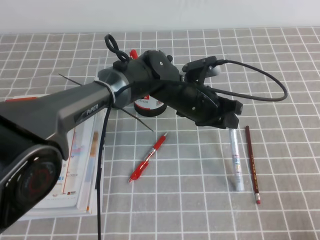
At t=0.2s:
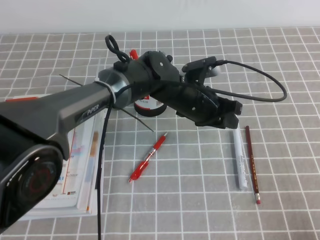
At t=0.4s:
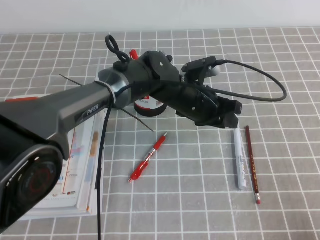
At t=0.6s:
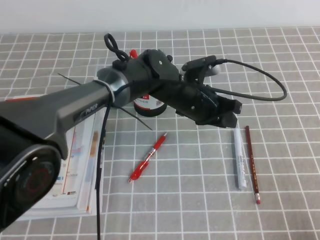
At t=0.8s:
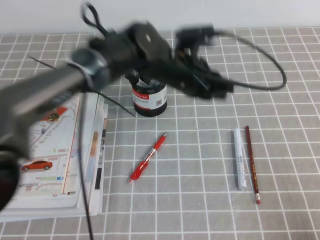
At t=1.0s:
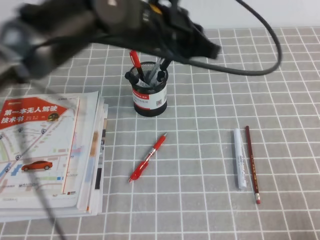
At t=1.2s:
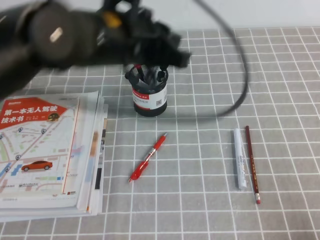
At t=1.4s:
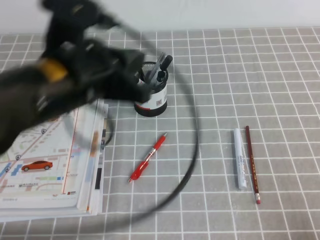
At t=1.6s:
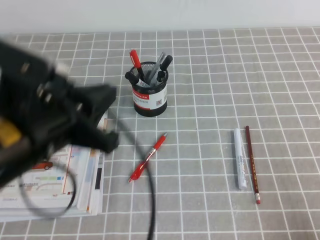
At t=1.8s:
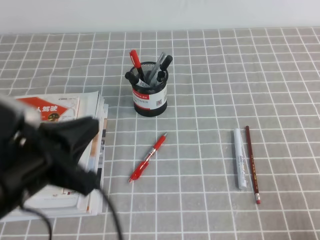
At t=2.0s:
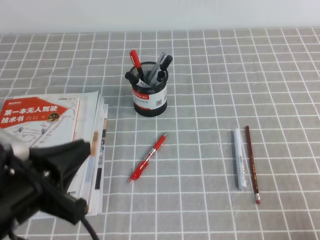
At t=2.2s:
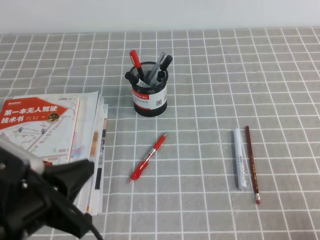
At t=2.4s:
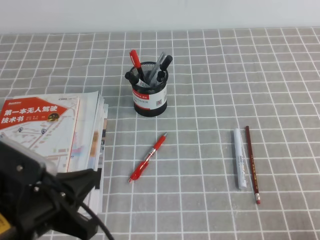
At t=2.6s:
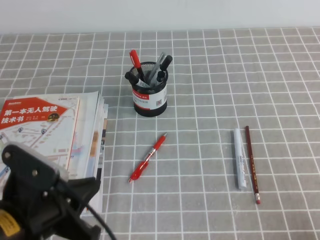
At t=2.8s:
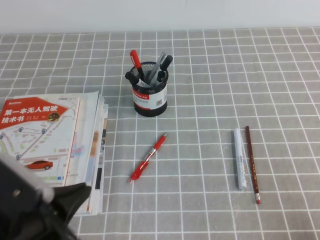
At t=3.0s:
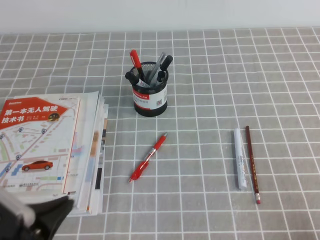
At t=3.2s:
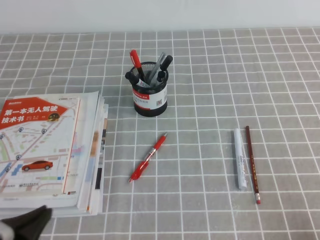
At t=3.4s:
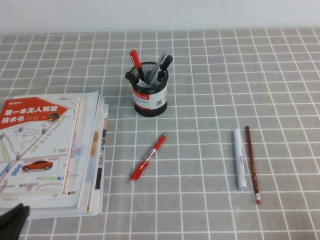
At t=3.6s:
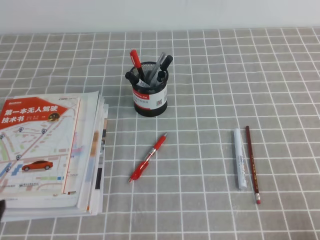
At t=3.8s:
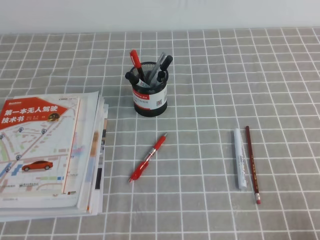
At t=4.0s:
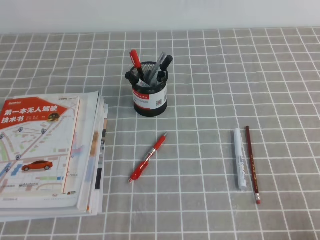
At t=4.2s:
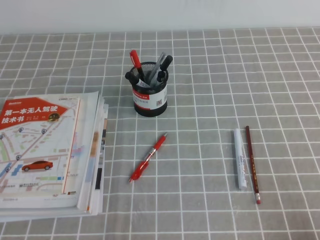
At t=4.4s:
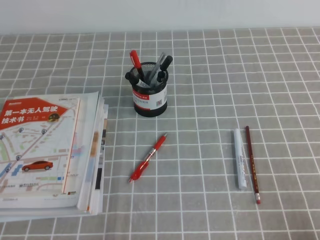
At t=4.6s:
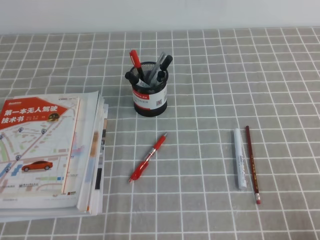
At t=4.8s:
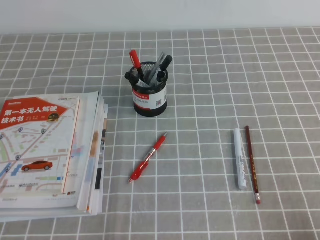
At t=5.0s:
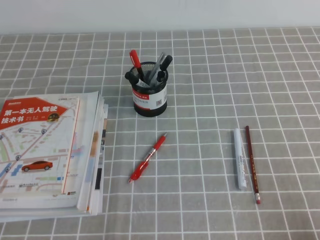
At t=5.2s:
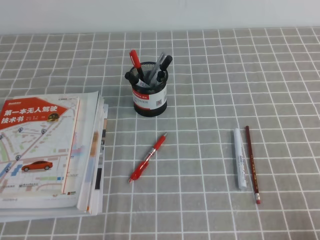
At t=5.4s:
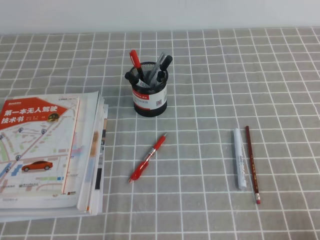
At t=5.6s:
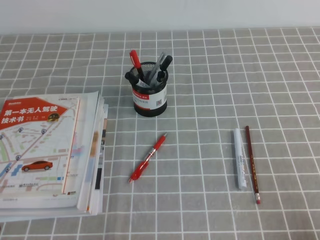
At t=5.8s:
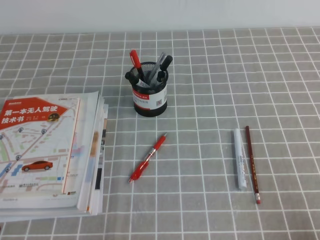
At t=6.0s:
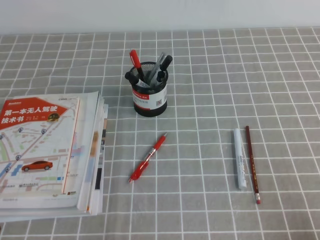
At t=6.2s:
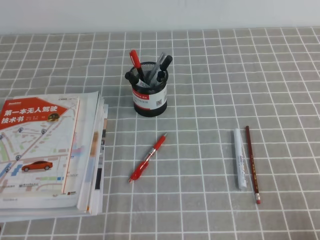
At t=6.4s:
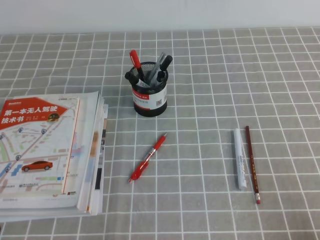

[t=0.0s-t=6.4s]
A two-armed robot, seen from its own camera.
Step, t=0.0s to t=6.4s: Pick up the pen from the pen holder.
t=0.0s to t=1.6s: The left gripper shifts approximately 30 cm to the left, backward and upward, and closes its fingers.
t=1.6s to t=3.2s: The left gripper shifts some 20 cm downward, backward and to the left.
t=3.2s to t=4.8s: The left gripper moves roughly 5 cm.

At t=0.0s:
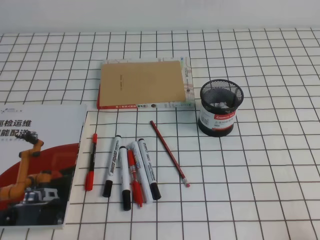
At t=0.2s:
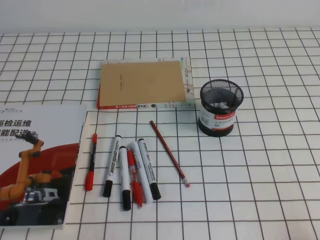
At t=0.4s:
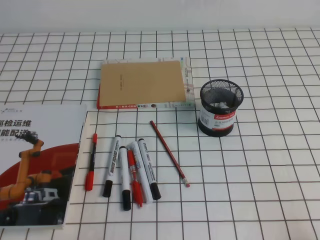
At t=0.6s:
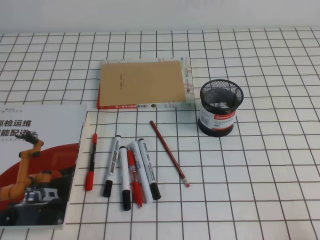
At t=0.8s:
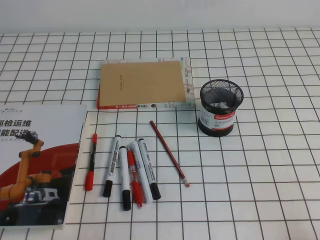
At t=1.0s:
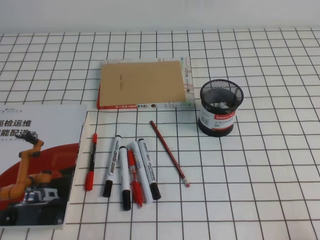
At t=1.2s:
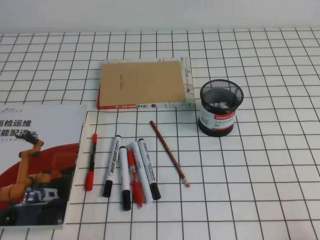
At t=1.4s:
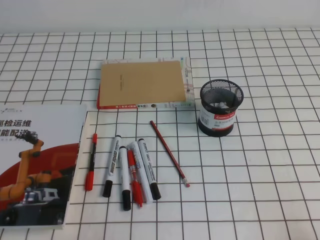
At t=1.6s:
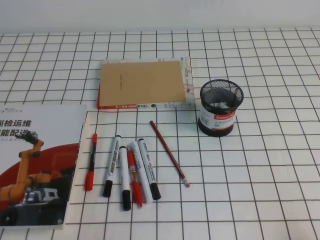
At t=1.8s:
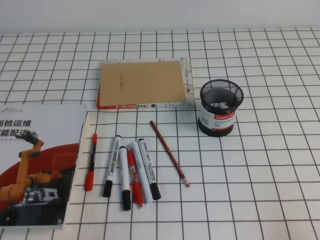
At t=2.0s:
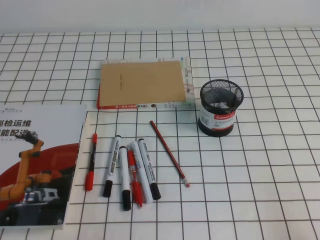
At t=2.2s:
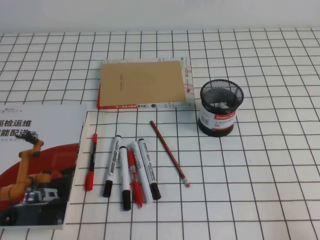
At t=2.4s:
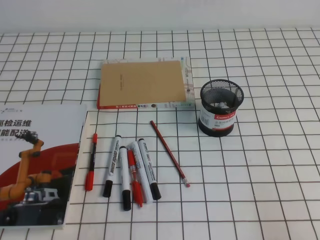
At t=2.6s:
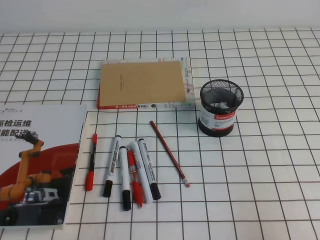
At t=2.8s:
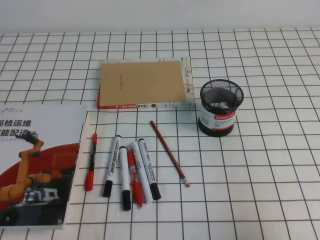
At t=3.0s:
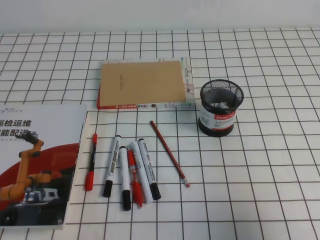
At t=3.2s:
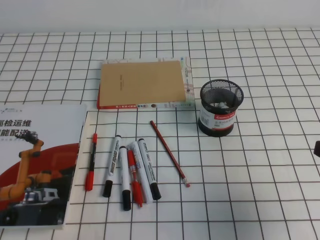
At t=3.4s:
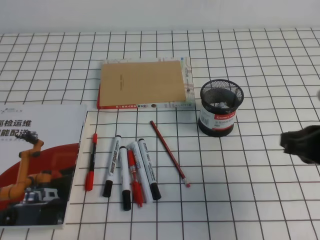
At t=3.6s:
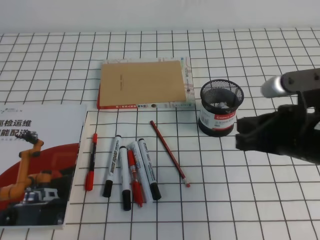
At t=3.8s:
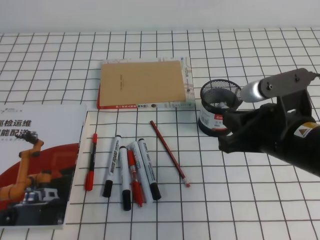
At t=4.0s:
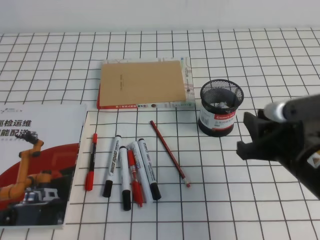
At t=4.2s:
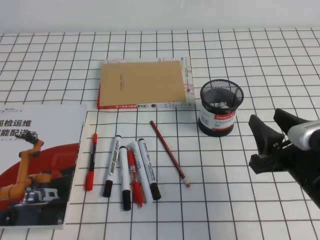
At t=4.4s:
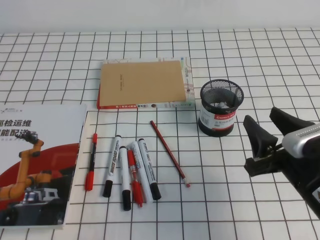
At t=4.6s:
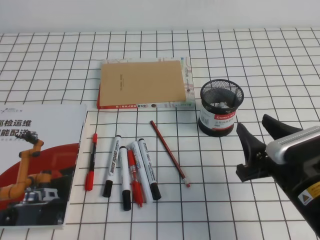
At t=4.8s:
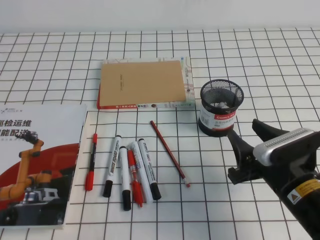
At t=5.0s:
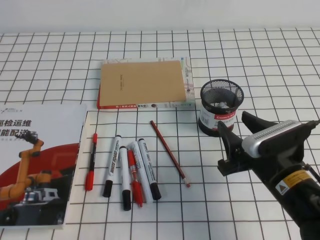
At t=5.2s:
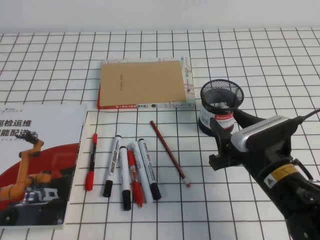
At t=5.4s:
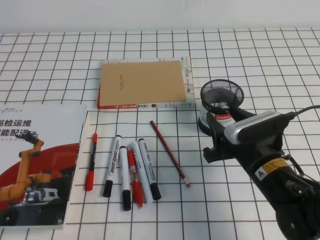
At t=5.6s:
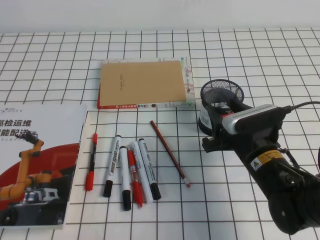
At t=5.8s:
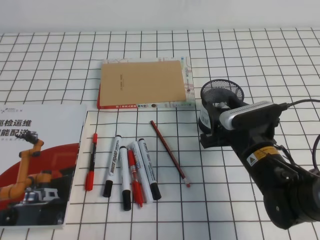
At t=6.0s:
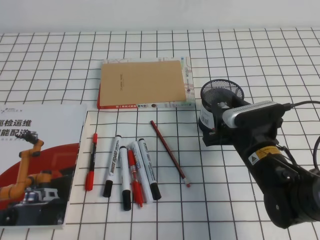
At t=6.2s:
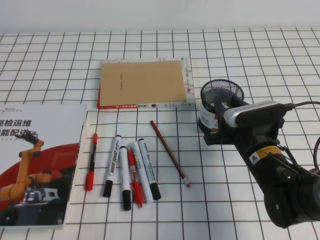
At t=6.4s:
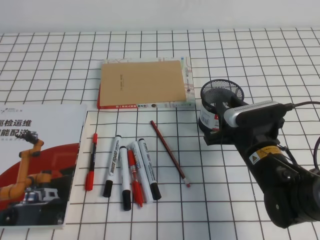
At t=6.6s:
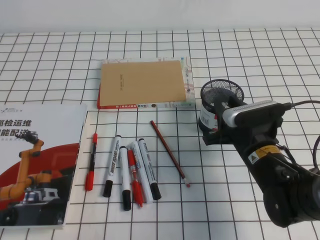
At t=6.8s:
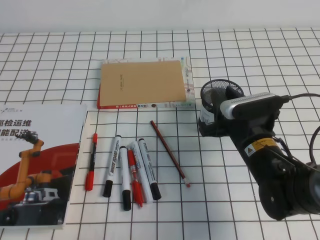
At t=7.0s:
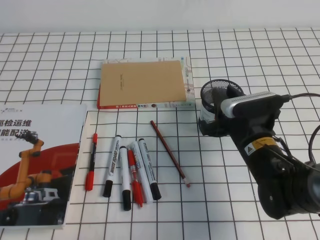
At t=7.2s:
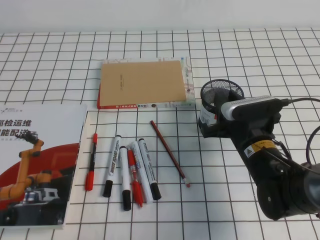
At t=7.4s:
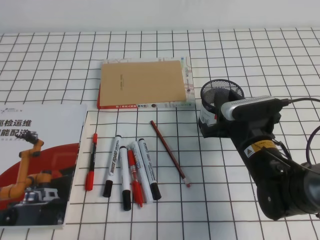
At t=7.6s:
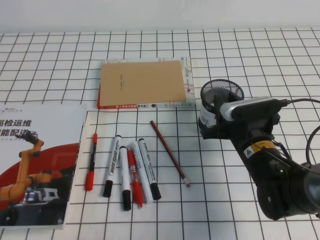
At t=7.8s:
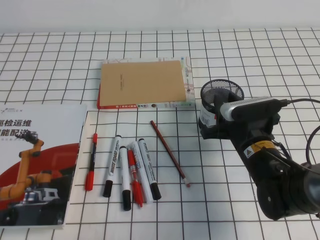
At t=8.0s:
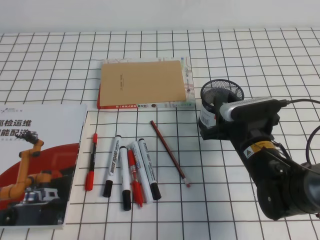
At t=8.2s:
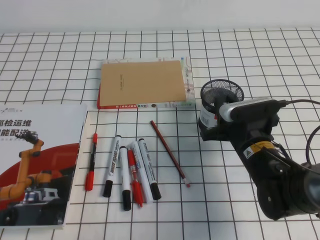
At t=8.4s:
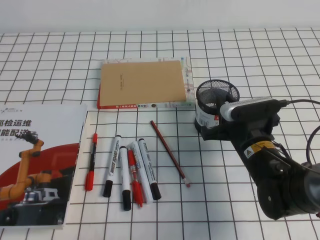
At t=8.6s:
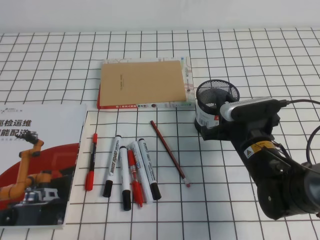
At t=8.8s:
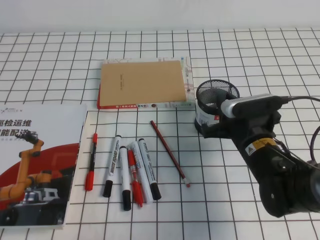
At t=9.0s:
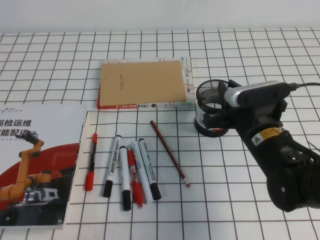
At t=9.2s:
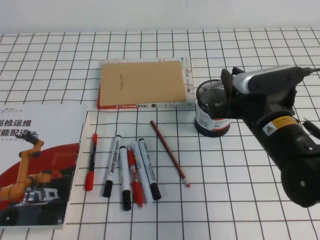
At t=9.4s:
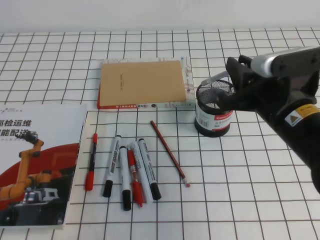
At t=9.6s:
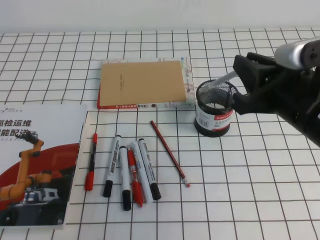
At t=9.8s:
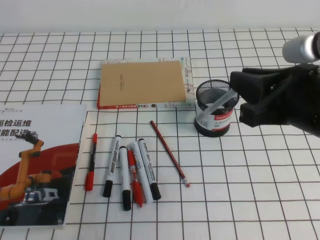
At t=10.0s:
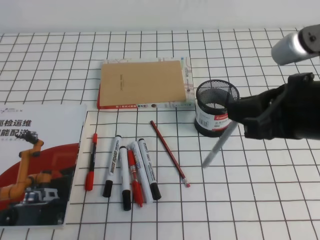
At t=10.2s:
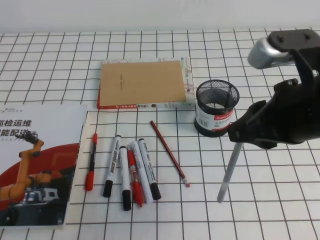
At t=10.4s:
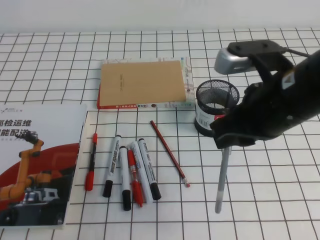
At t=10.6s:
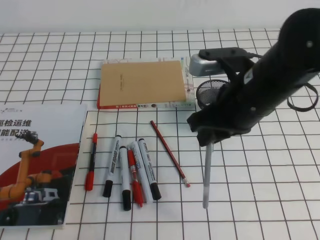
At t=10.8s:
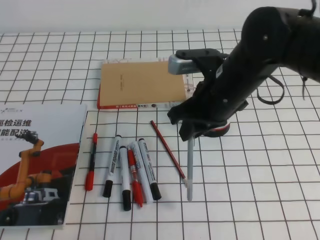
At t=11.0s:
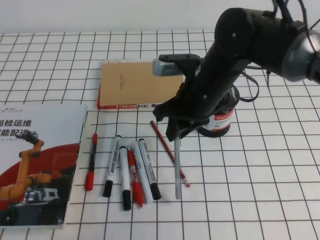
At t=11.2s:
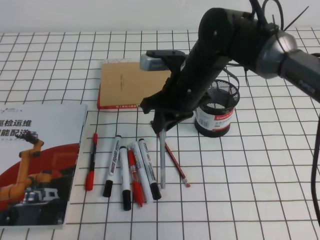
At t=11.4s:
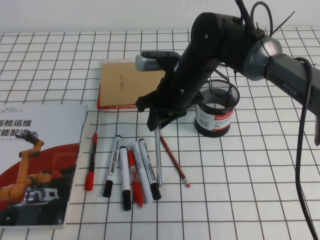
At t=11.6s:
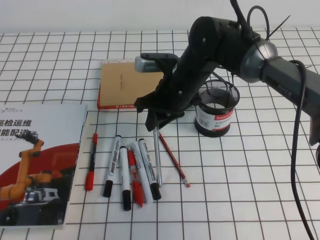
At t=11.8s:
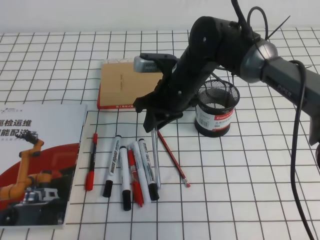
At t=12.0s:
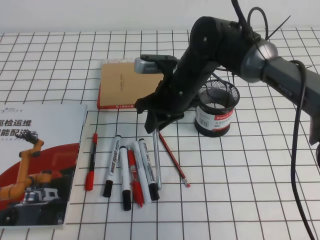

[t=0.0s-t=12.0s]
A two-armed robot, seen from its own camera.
t=0.0s to t=1.6s: Neither gripper changes place.
t=1.6s to t=3.0s: The right gripper moves upward and forward, about 10 cm.
t=3.0s to t=4.4s: The right gripper moves to the left, forward and downward, roughly 15 cm, and opens.
t=4.4s to t=6.0s: The right gripper goes some 10 cm forward, to the left and downward.
t=6.0s to t=7.6s: Both grippers stay put.
t=7.6s to t=9.0s: There are only small adjustments of the grippers.
t=9.0s to t=10.4s: The right gripper moves upward, some 15 cm.
t=10.4s to t=12.0s: The right gripper goes some 20 cm forward, to the left and downward.

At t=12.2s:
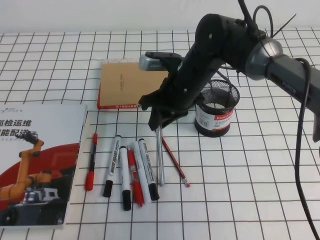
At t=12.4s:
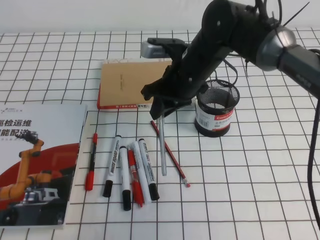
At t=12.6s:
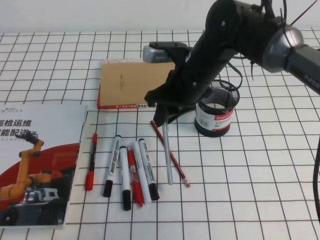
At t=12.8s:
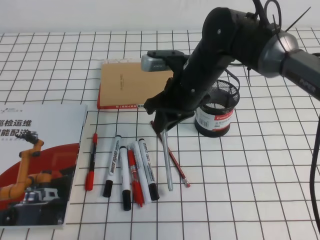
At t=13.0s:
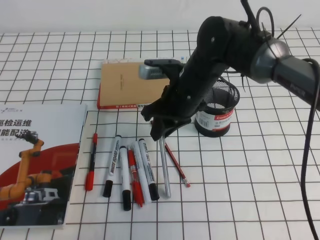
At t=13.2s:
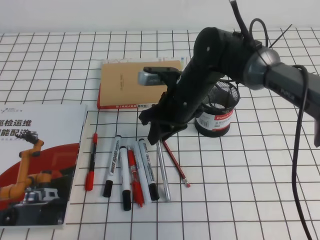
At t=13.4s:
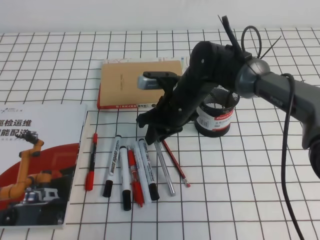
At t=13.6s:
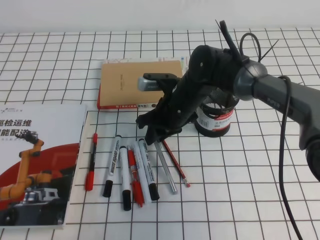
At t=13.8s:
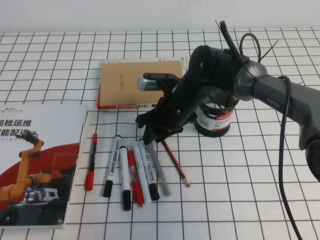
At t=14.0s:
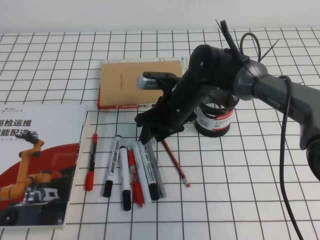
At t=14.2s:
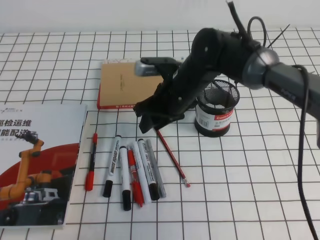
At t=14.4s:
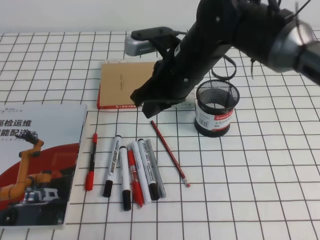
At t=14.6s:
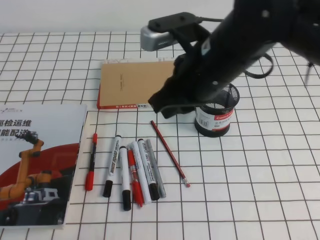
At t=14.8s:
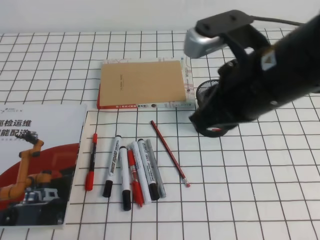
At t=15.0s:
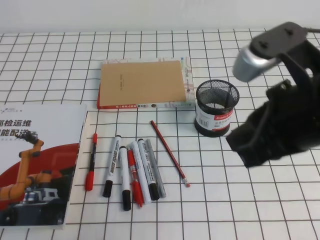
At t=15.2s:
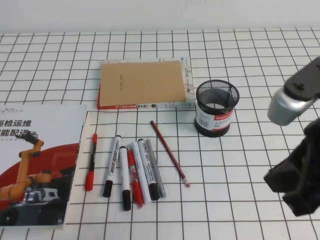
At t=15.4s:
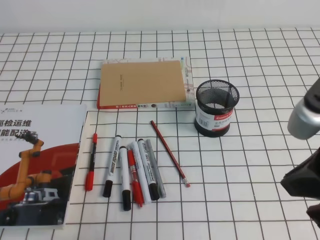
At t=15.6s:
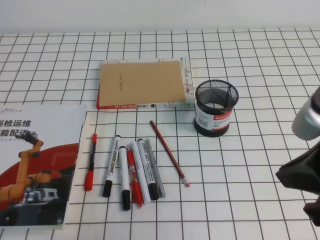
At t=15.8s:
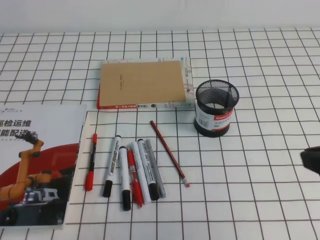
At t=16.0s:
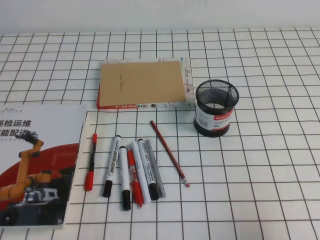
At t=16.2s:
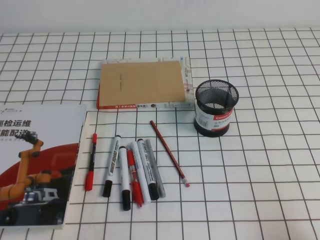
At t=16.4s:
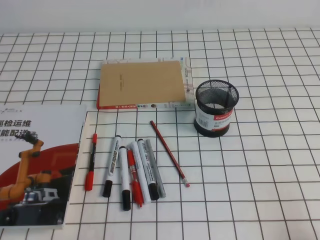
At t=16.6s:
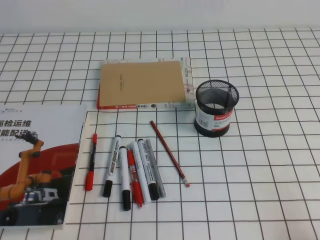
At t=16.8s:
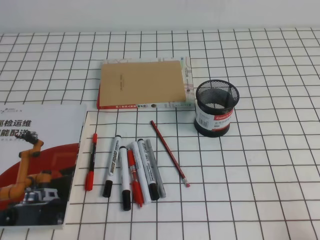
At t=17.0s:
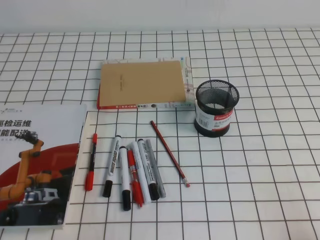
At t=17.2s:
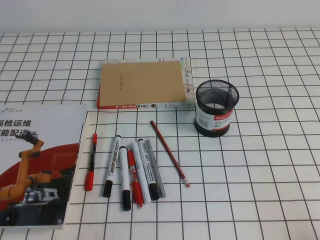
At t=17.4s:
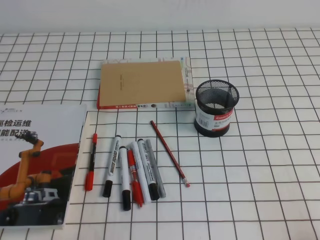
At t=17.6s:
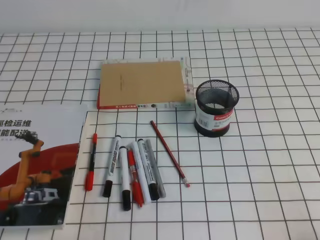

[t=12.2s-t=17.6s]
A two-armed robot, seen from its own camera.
Step, t=12.2s to t=17.6s: Pick up the pen from the pen holder.
t=12.2s to t=13.6s: The right gripper travels downward by approximately 5 cm.
t=13.6s to t=15.0s: The right gripper moves backward, upward and to the right, approximately 30 cm, and opens, then closes again.
t=15.0s to t=16.2s: The right gripper travels to the right, downward and backward by approximately 25 cm.
